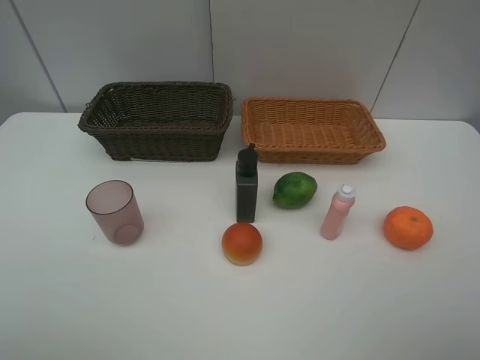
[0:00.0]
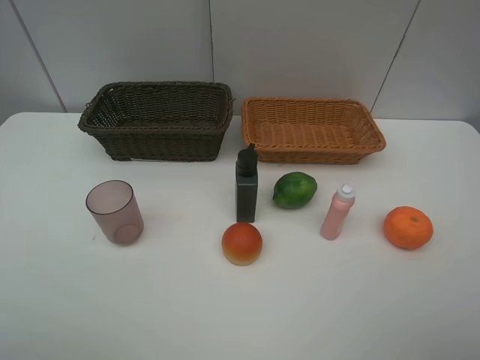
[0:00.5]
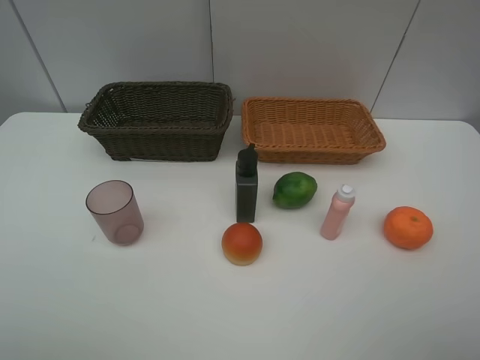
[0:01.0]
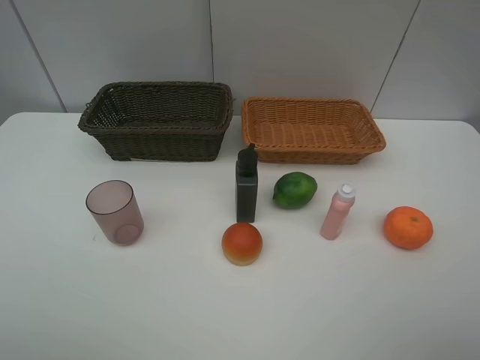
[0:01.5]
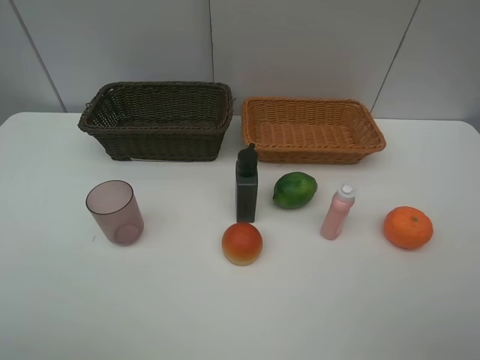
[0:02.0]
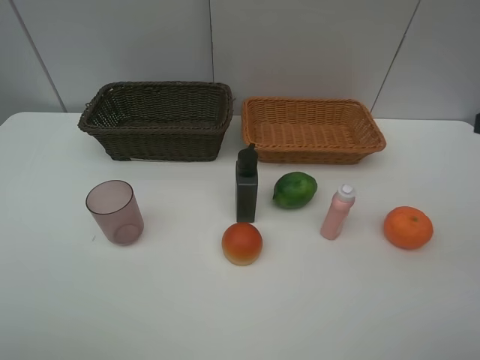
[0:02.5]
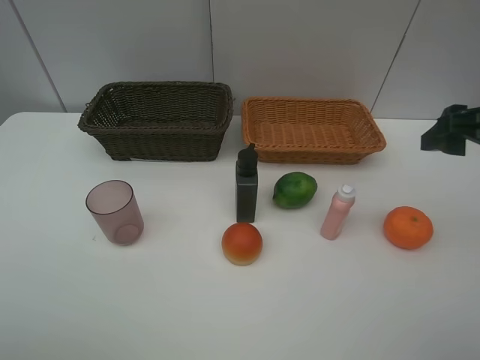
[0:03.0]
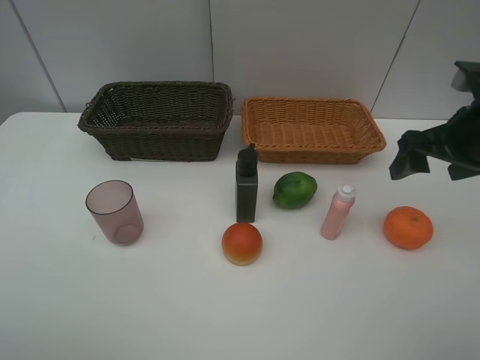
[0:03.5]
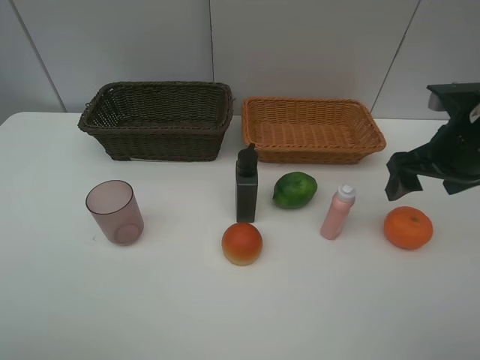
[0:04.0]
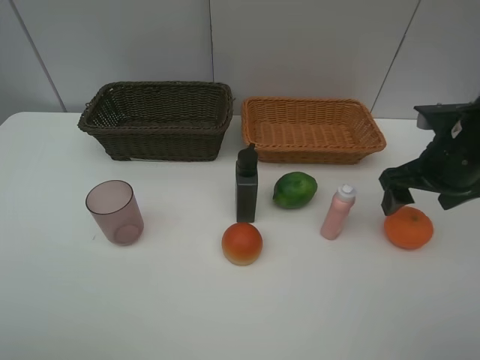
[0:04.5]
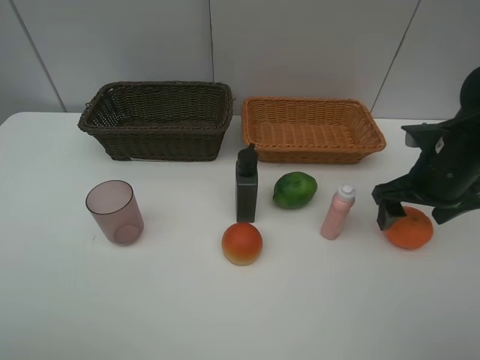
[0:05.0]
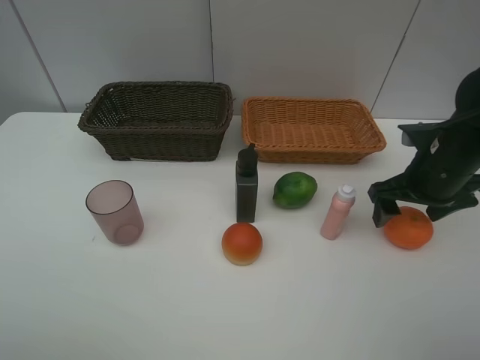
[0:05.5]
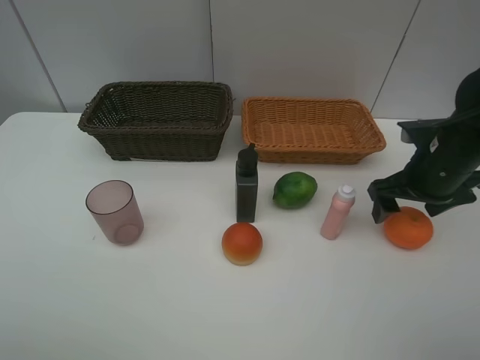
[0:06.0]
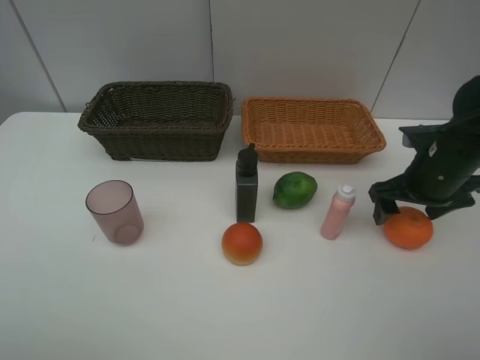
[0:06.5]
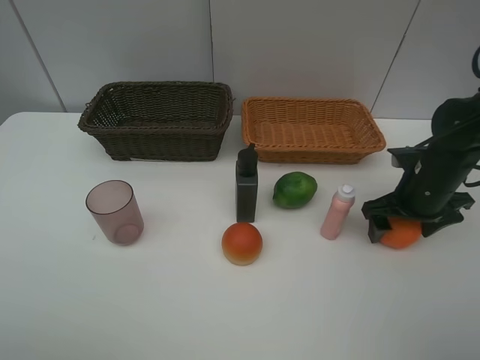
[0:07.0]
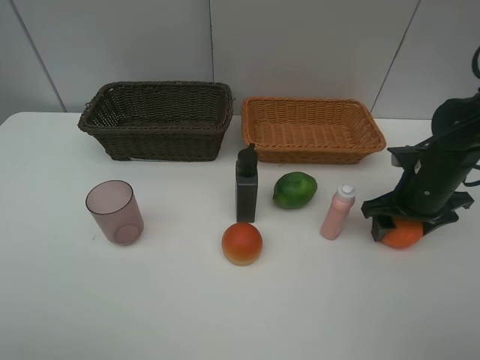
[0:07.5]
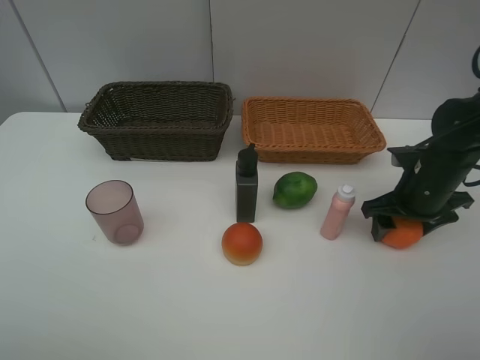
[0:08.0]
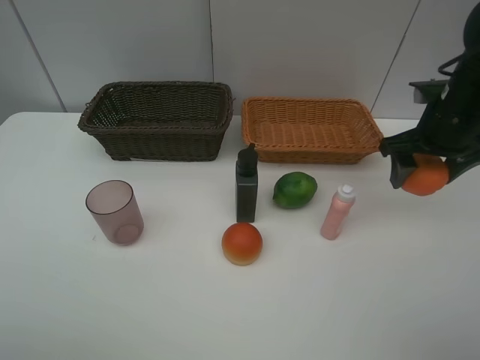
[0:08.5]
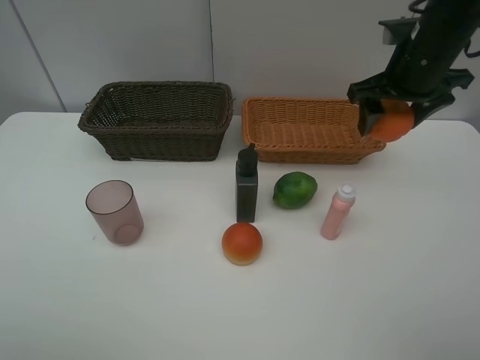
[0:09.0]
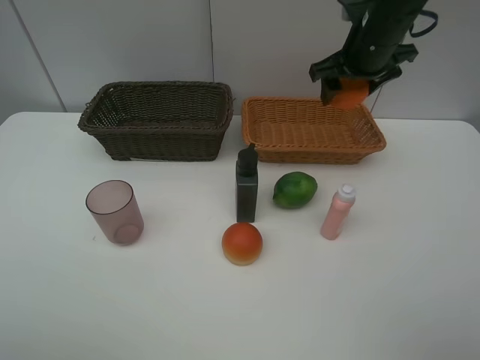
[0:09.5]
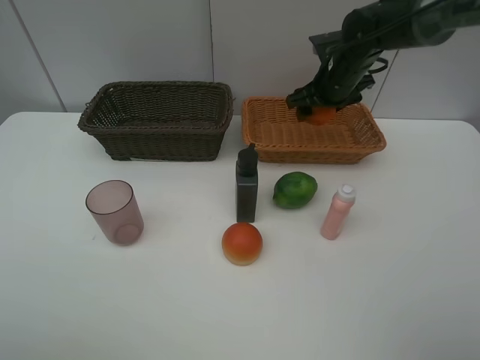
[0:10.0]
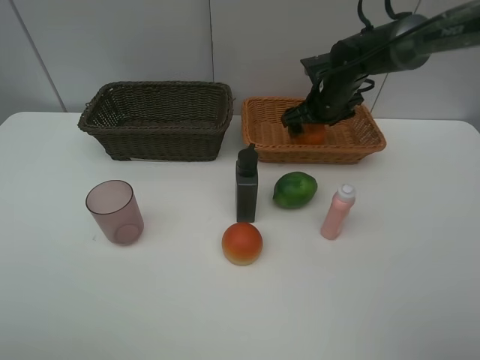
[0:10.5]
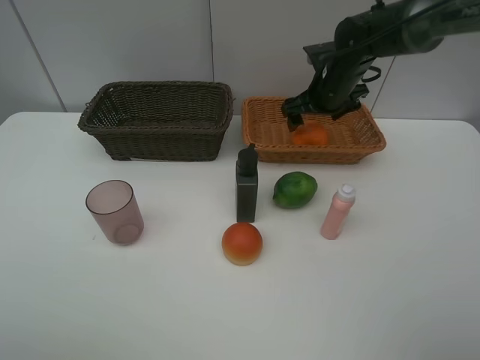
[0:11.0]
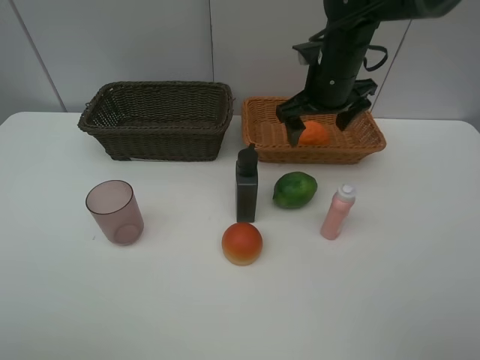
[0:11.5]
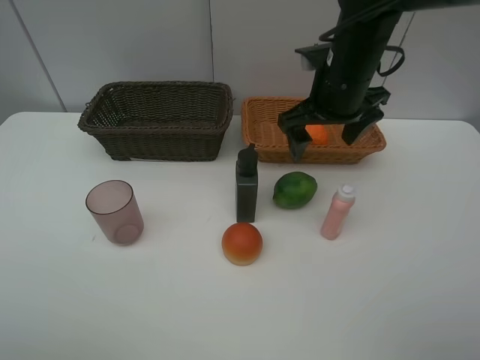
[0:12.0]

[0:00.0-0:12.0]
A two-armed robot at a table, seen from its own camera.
Task of the whole recording: place multiple objects separately in different baskets.
0:02.0 to 0:04.0: The right gripper shifts about 20 cm forward and downward.
0:04.0 to 0:06.0: The right gripper is displaced downward by about 5 cm.
0:06.0 to 0:08.0: The grippers move only a little.
0:08.0 to 0:10.0: The right gripper moves forward and to the left, about 20 cm.
0:10.0 to 0:12.0: The right gripper travels backward and upward by about 15 cm.

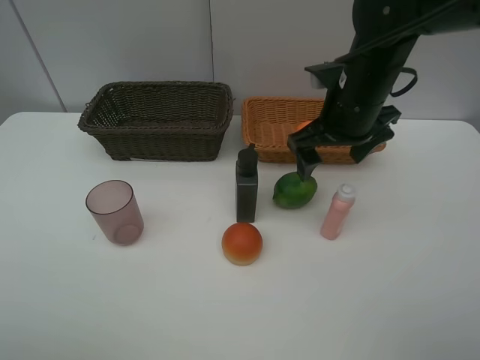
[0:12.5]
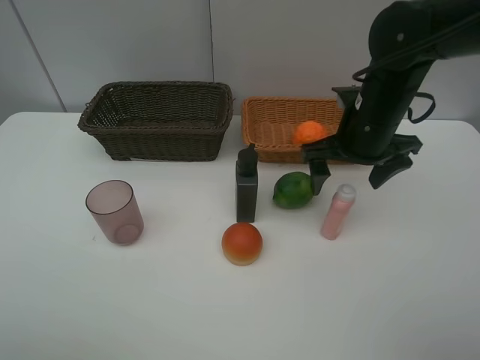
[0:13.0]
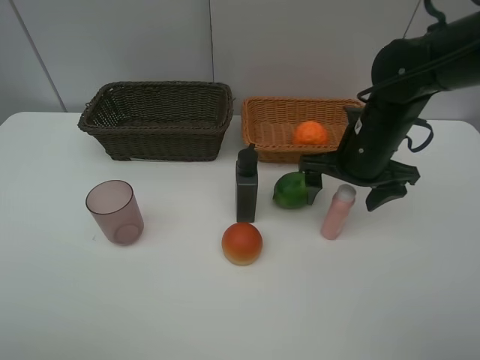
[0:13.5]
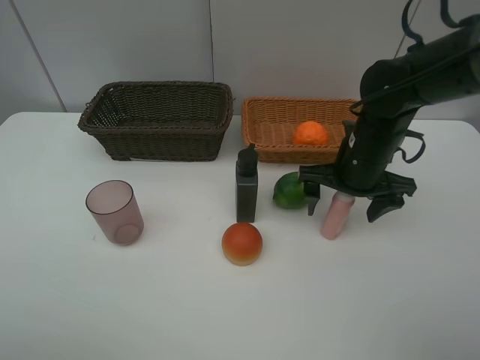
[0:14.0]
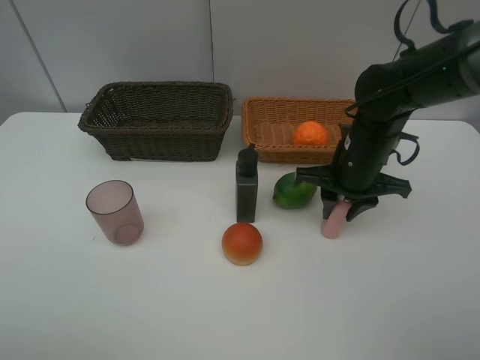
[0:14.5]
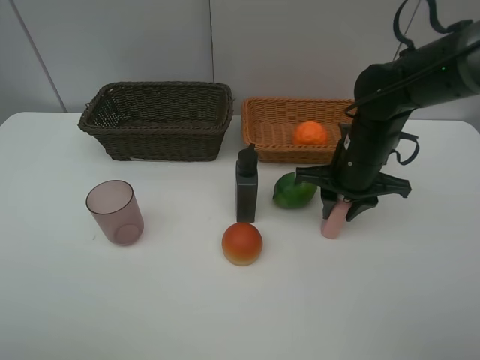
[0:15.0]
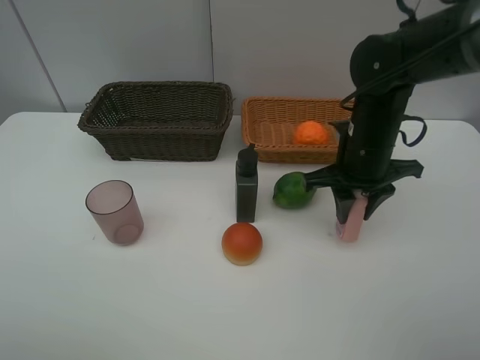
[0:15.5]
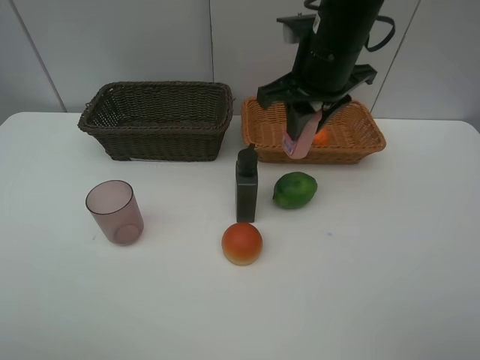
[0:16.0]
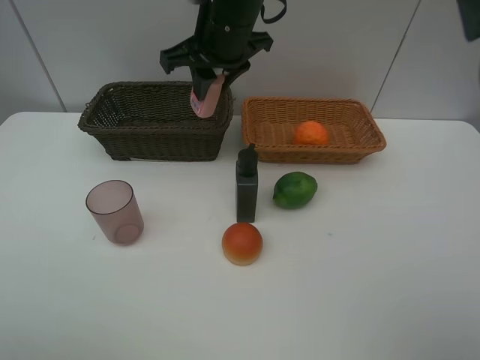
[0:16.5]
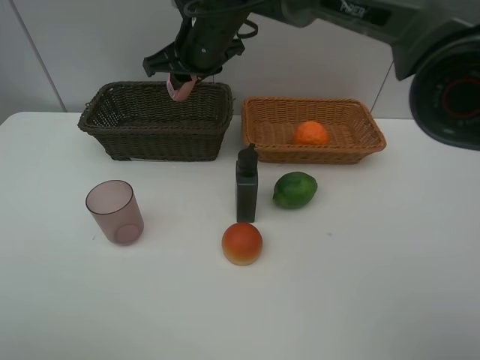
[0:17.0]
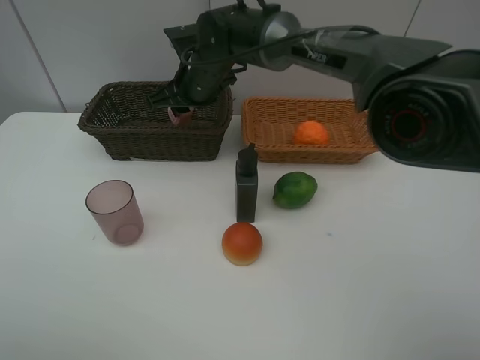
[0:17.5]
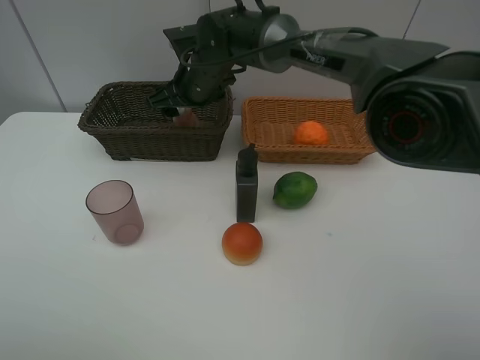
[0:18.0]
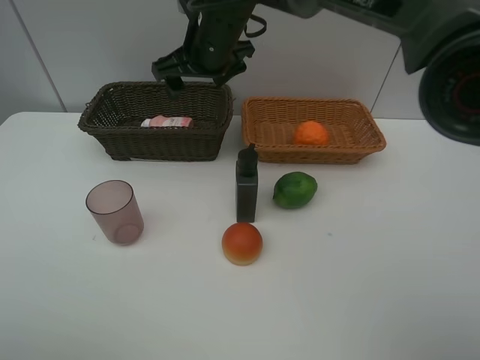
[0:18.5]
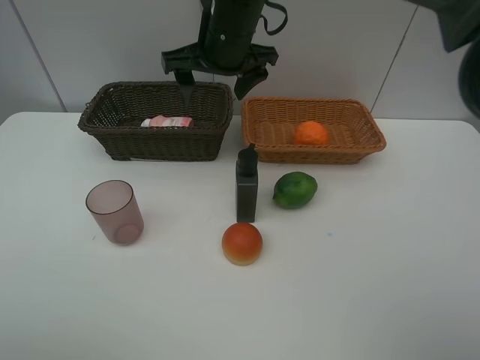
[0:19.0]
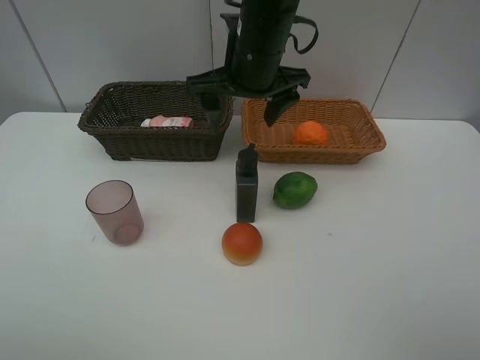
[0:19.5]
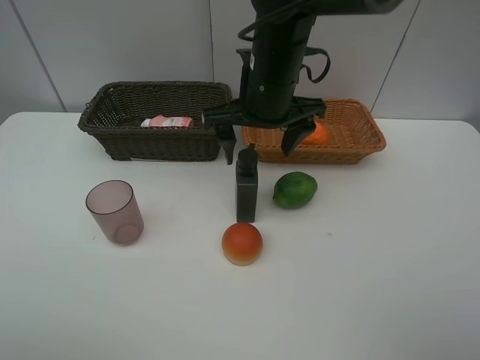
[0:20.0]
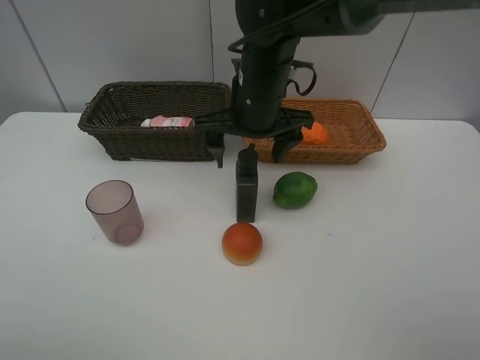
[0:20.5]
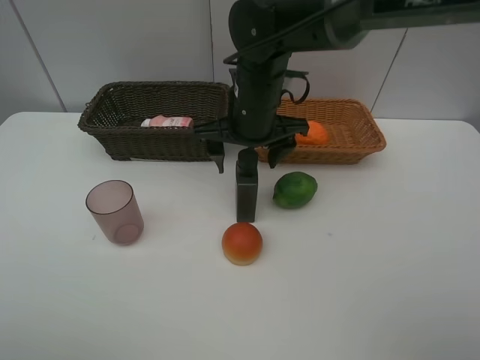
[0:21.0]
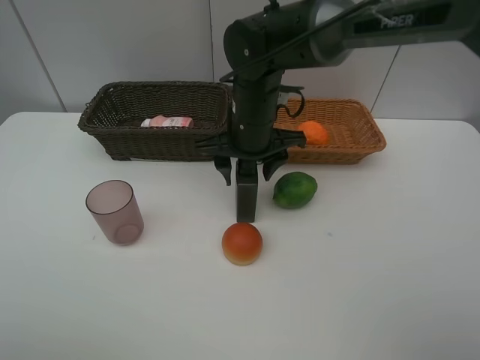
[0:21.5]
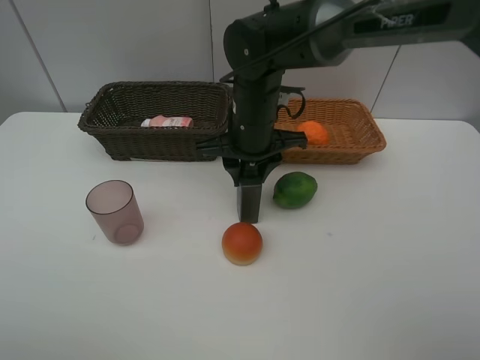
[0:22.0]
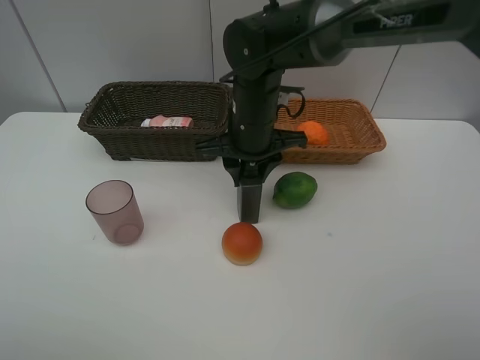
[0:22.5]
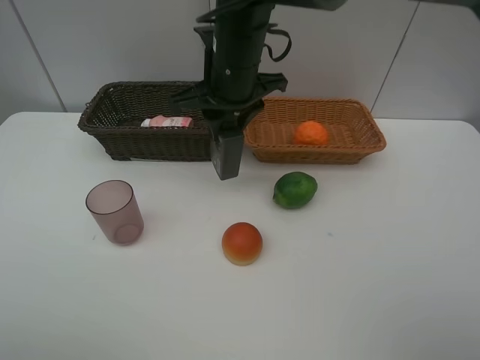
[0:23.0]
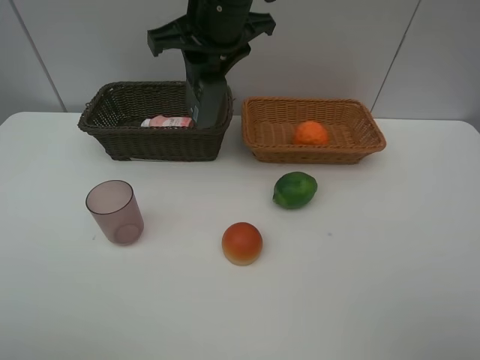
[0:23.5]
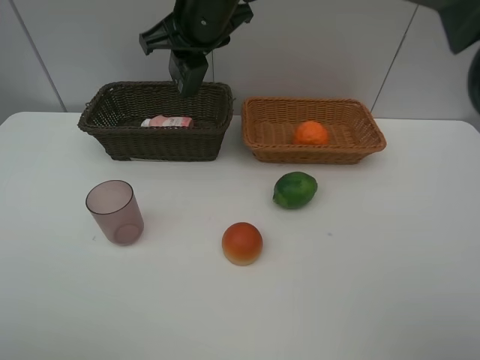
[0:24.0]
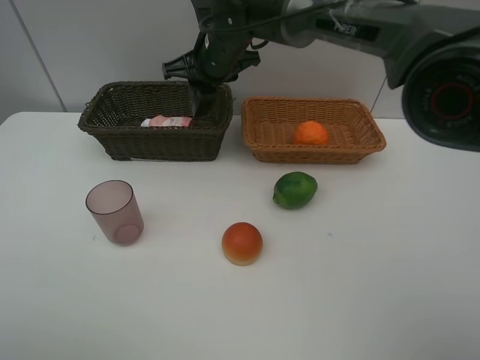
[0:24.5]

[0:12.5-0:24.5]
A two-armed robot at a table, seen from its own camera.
Task of the whole recording: place multiple objects separately in different baskets.
0:12.5 to 0:14.5: The right gripper goes approximately 10 cm downward, and closes up.
0:14.5 to 0:16.5: The right gripper is displaced to the left, upward and forward by roughly 25 cm.
0:16.5 to 0:18.5: The right gripper moves roughly 10 cm downward and comes back, and opens up.
0:18.5 to 0:20.5: The right gripper shifts approximately 10 cm backward and to the right.
0:20.5 to 0:22.5: The right gripper closes.
0:22.5 to 0:24.5: The right gripper heads forward, covering about 10 cm, and moves approximately 15 cm upward and comes back.

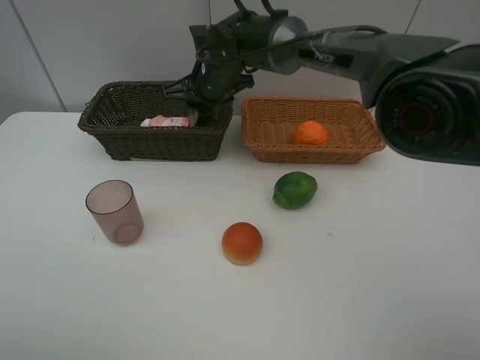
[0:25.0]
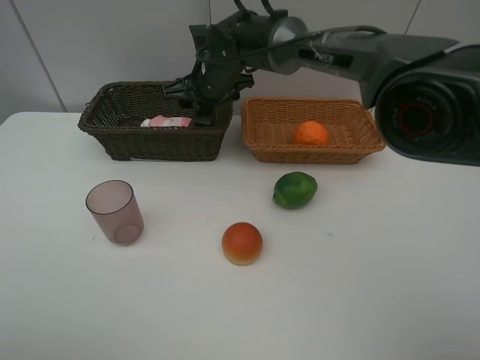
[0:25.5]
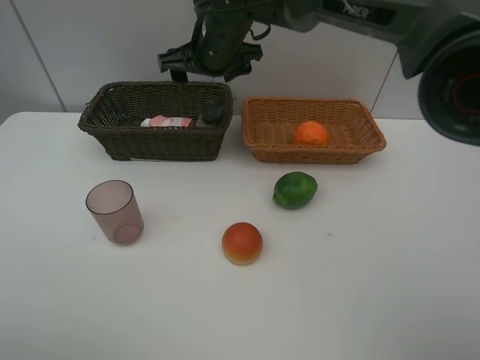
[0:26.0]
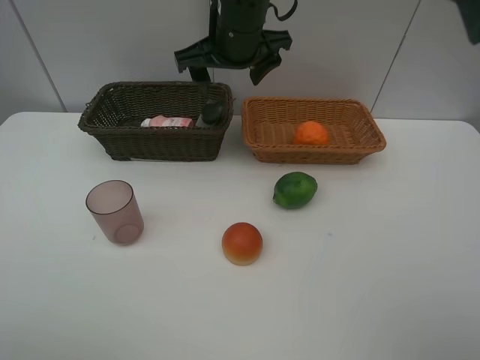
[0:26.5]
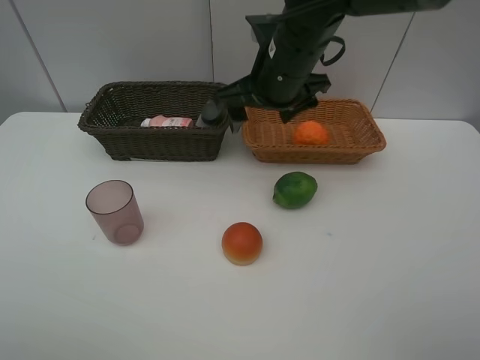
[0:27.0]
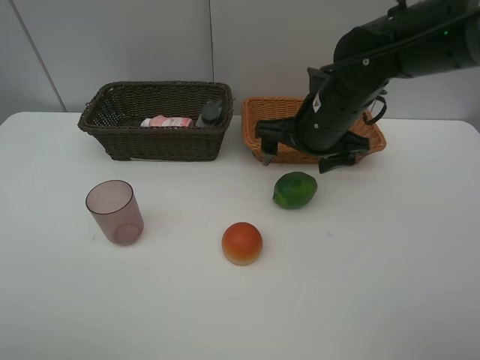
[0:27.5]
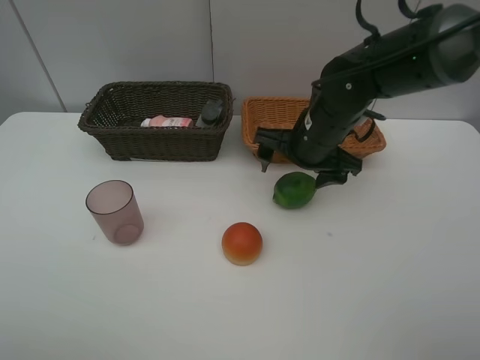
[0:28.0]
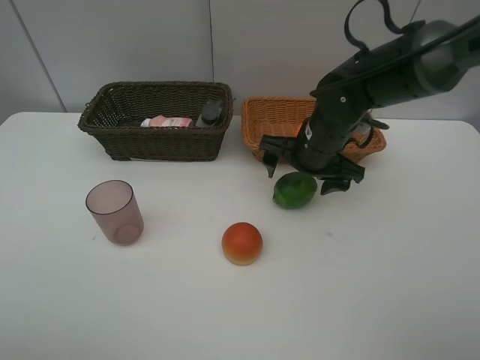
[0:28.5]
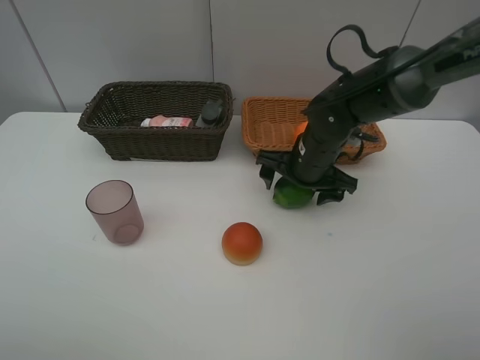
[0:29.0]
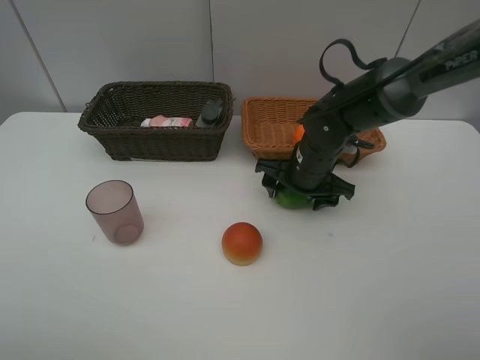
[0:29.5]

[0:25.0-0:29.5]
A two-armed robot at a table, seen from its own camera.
Task of the whole recording: place multiple objects separately in different baskets.
0:25.0 to 0:27.0: The right gripper shifts about 15 cm backward, to the right and upward, and opens up.
0:27.0 to 0:29.5: The right gripper shifts about 15 cm downward.
